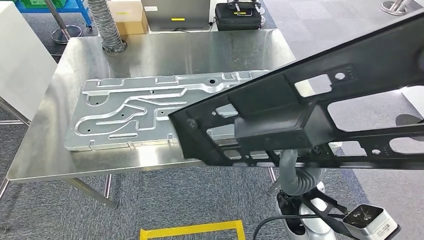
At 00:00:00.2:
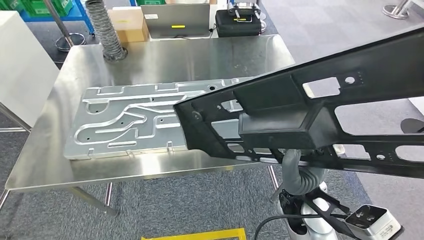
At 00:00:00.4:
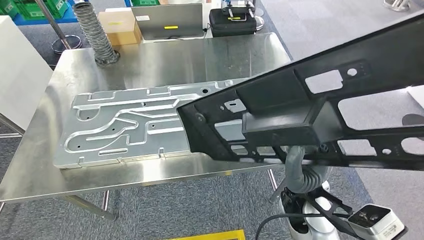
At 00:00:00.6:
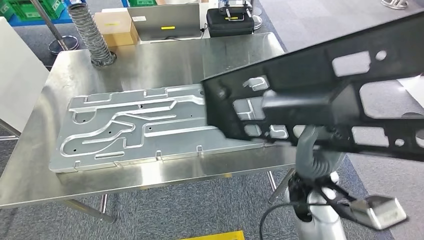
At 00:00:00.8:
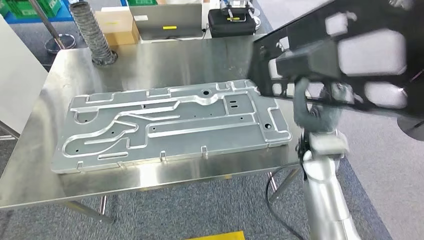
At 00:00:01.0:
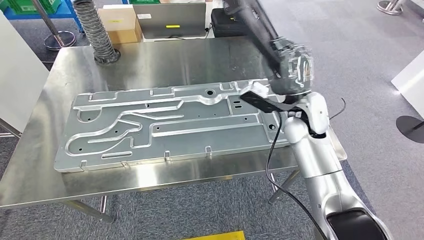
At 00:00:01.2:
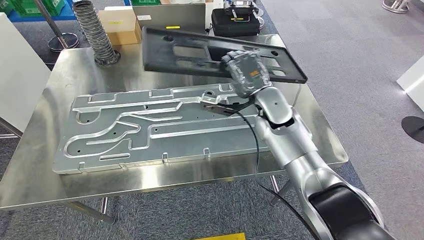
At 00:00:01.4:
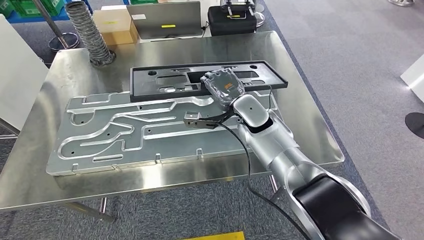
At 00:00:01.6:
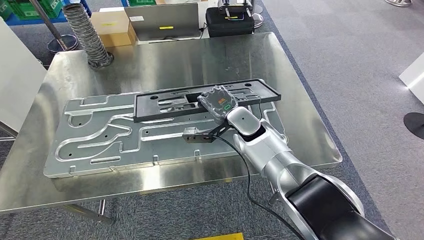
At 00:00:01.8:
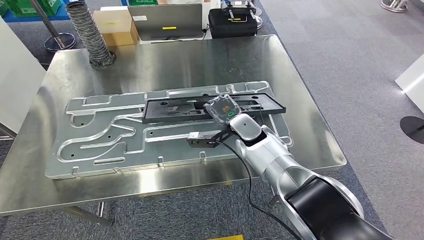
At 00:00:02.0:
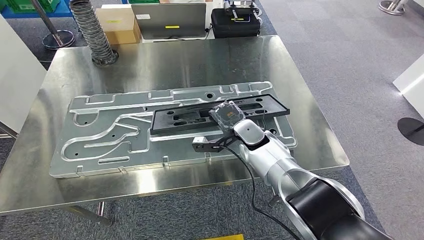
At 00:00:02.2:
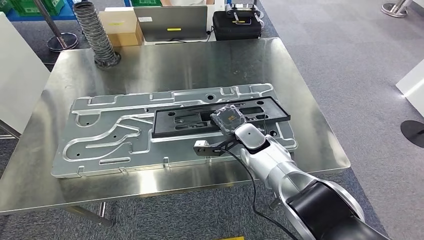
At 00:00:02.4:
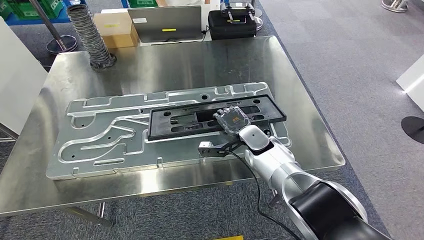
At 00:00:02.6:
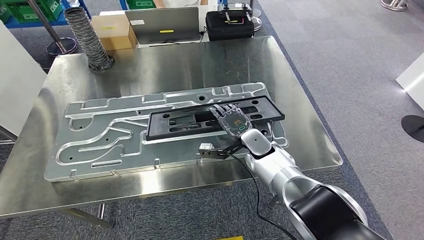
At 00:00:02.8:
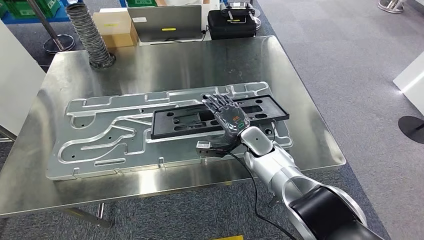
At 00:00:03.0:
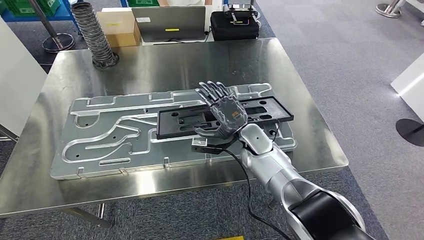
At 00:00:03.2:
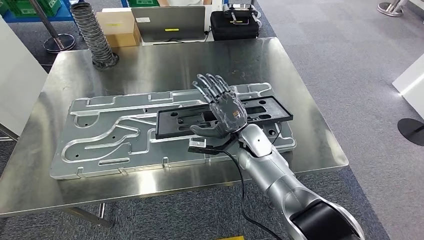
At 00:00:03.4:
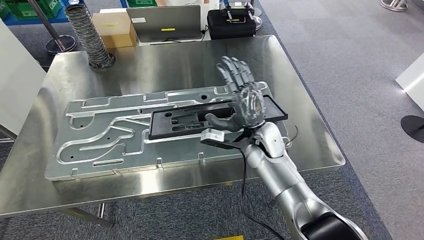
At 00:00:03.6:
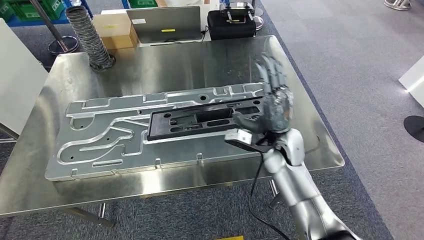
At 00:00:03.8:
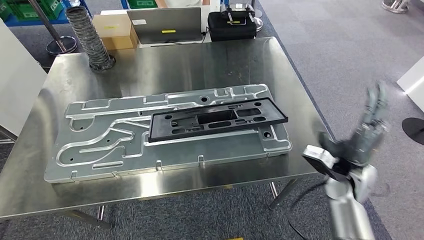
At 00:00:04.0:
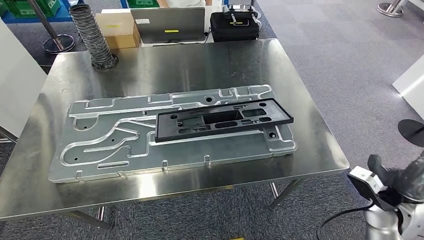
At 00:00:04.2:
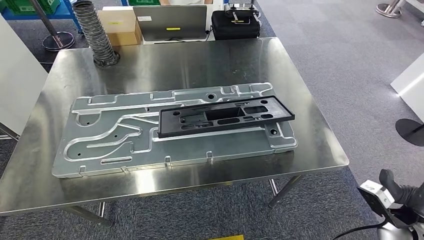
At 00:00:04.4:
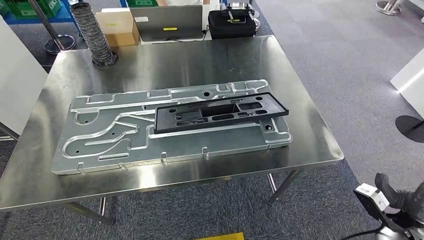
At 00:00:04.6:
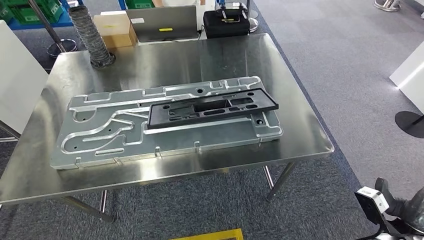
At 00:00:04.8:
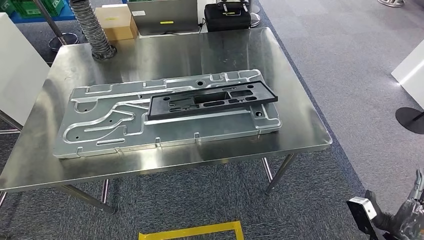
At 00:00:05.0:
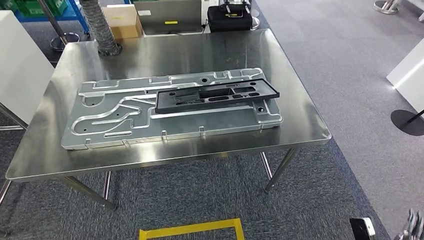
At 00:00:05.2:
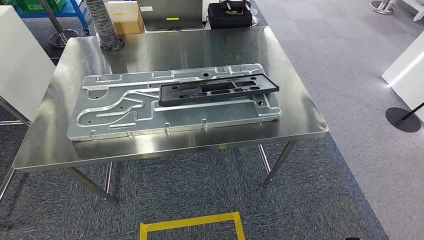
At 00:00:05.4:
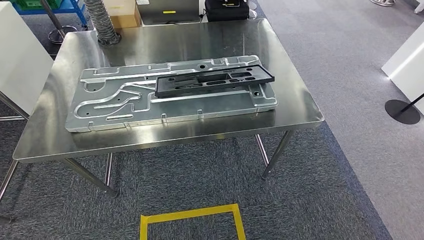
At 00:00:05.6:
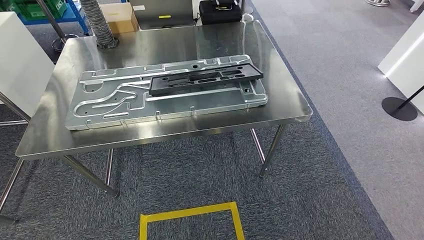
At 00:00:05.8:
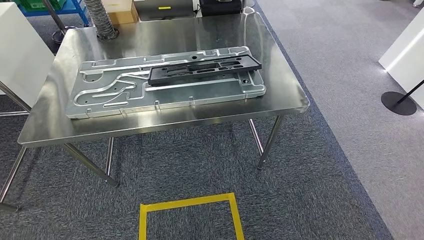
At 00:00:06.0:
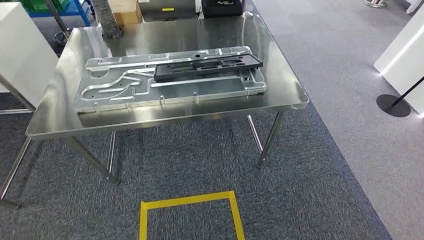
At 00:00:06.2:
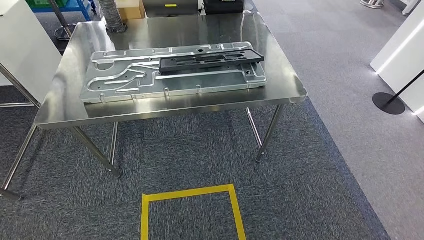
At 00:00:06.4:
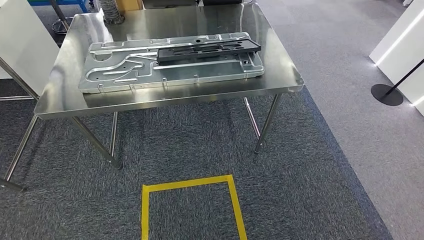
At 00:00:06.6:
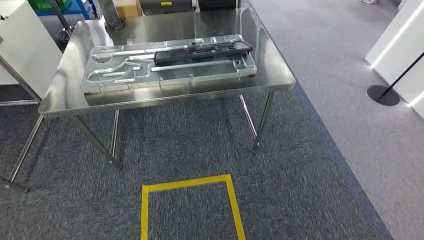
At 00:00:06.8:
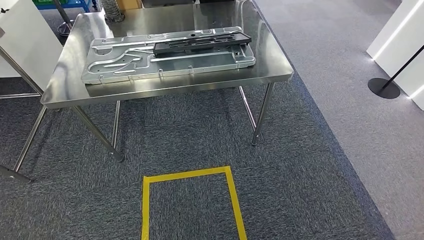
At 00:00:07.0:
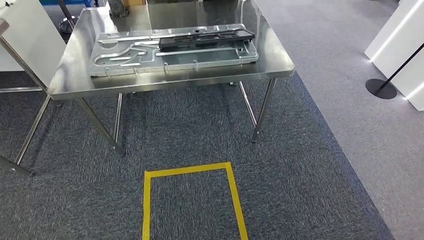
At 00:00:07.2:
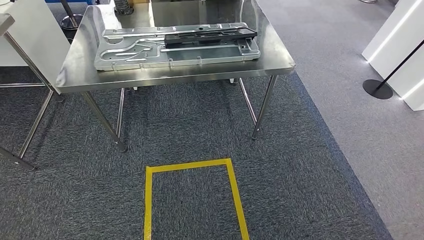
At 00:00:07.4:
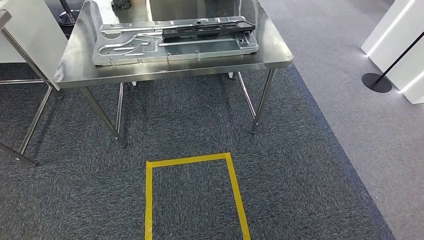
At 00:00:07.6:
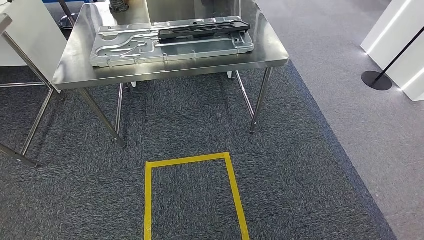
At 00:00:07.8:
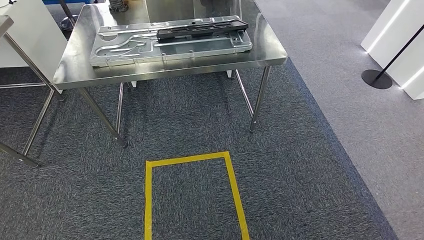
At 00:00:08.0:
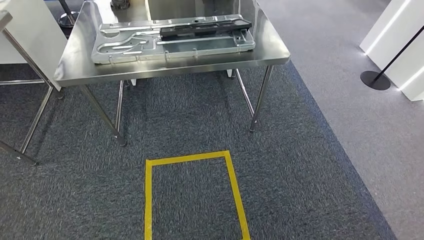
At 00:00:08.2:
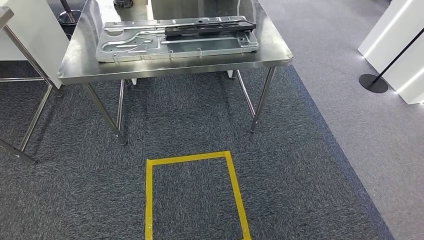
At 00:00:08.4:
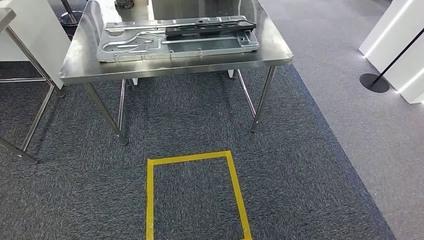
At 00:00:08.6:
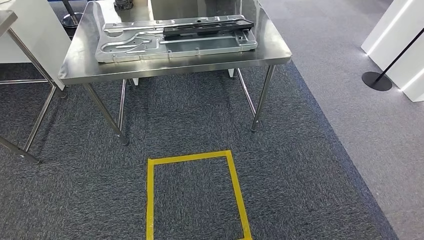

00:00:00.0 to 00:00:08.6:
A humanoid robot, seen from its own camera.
Step, 00:00:00.0 to 00:00:03.4: Insert the large material into the corresponding slot on the workbench.
Step, 00:00:05.0 to 00:00:08.6: Move to the initial position of the shelf.
00:00:07.2 to 00:00:08.6: There are only small adjustments of the hands.
